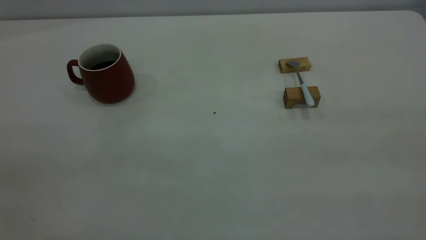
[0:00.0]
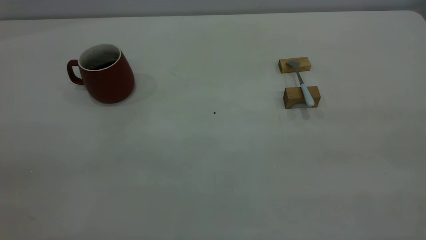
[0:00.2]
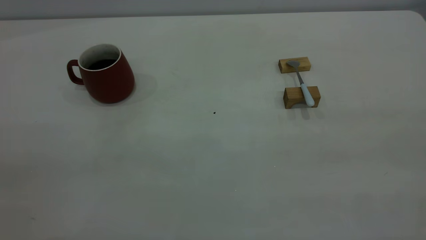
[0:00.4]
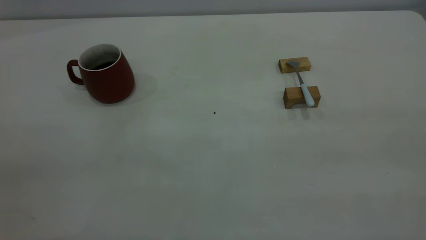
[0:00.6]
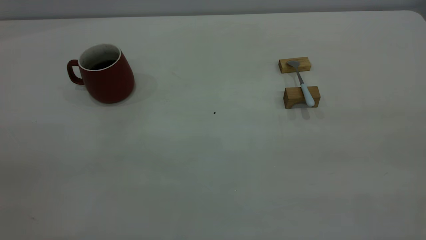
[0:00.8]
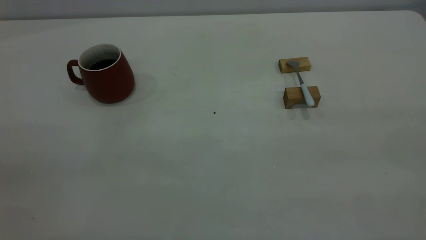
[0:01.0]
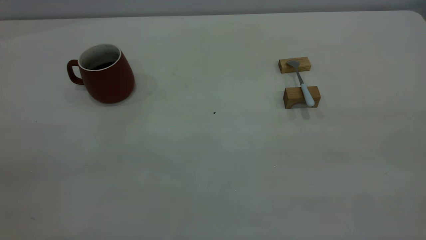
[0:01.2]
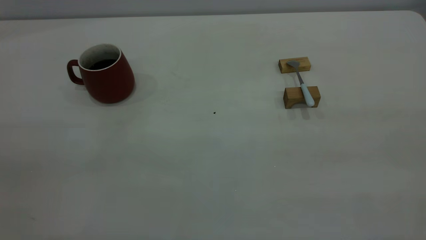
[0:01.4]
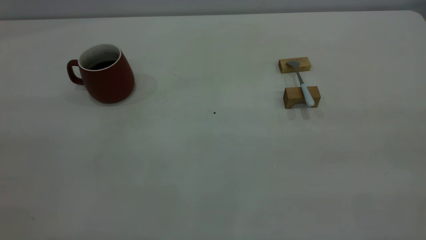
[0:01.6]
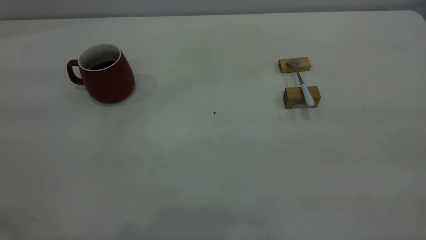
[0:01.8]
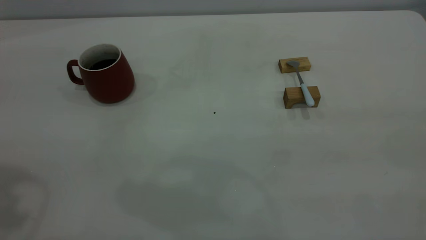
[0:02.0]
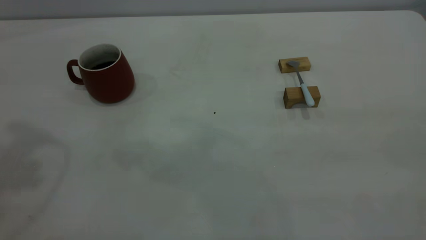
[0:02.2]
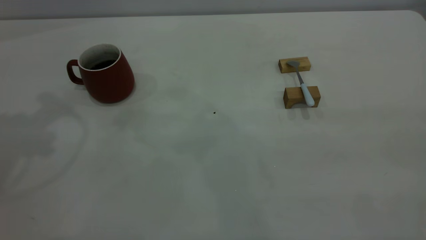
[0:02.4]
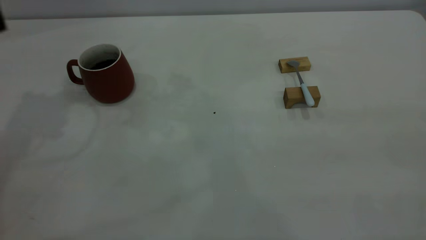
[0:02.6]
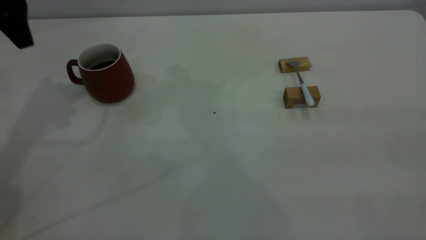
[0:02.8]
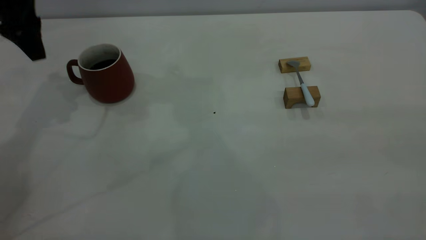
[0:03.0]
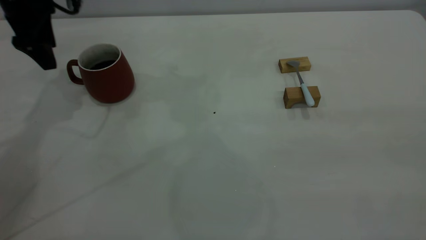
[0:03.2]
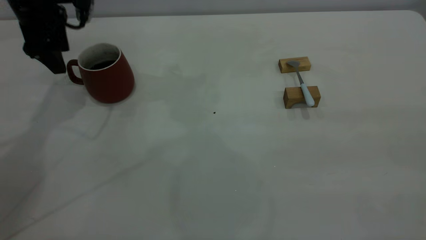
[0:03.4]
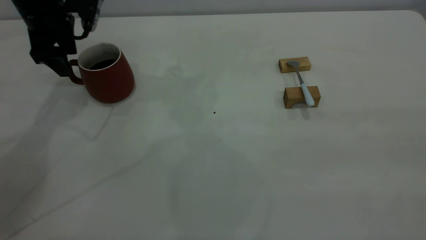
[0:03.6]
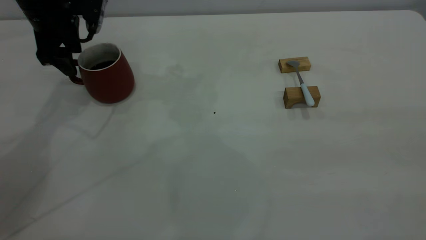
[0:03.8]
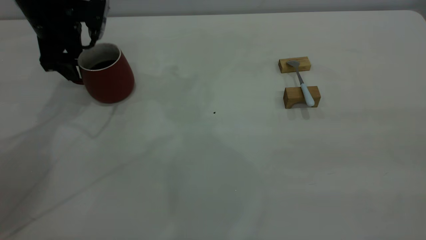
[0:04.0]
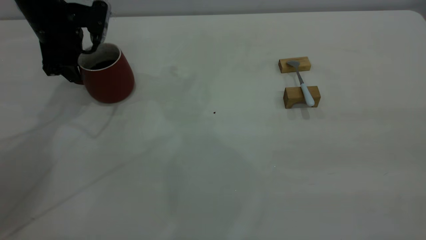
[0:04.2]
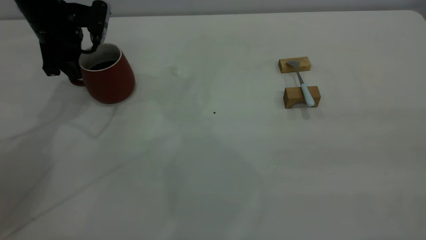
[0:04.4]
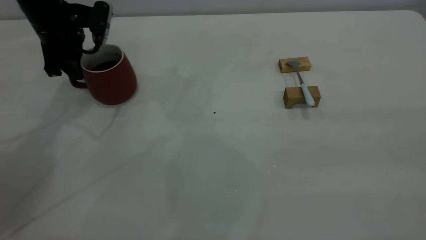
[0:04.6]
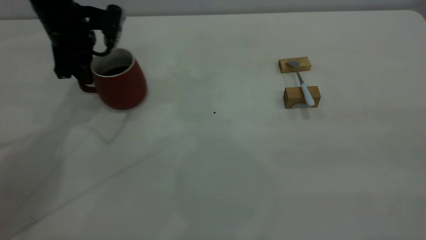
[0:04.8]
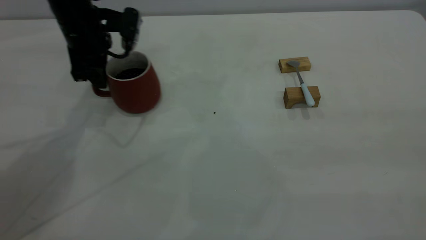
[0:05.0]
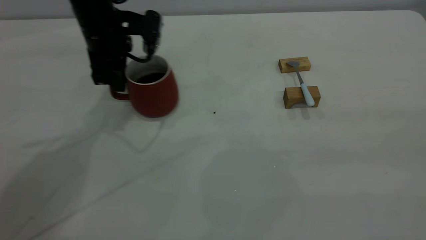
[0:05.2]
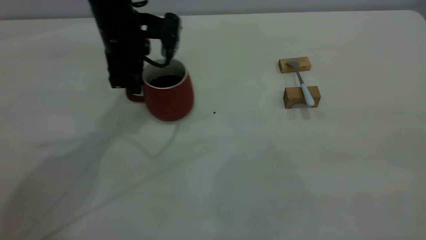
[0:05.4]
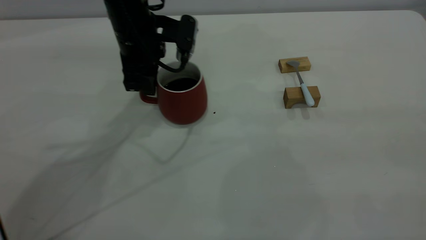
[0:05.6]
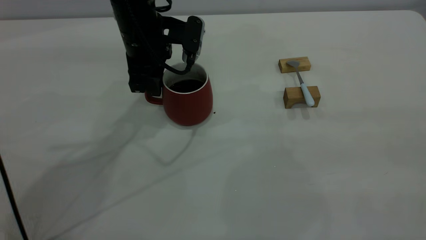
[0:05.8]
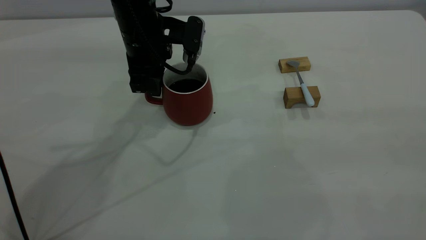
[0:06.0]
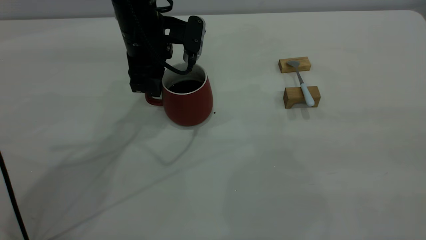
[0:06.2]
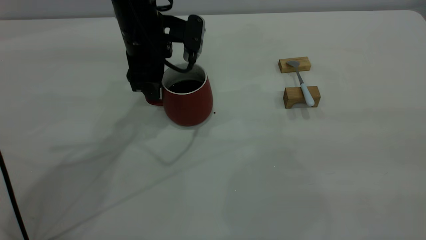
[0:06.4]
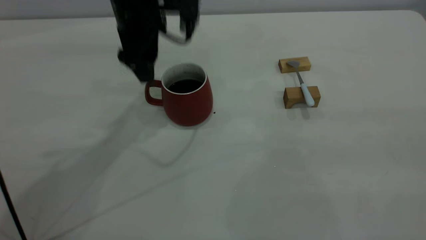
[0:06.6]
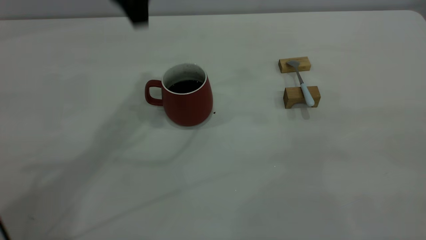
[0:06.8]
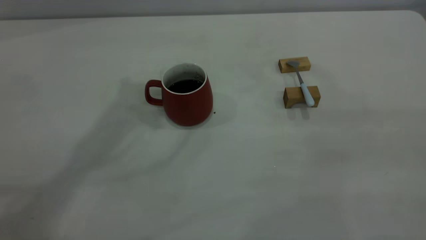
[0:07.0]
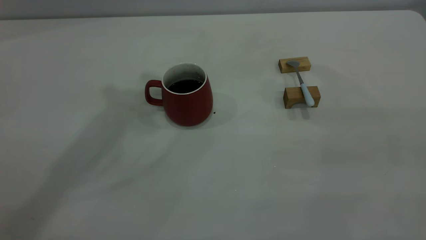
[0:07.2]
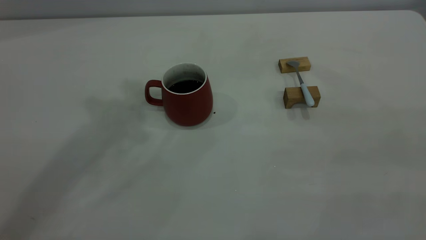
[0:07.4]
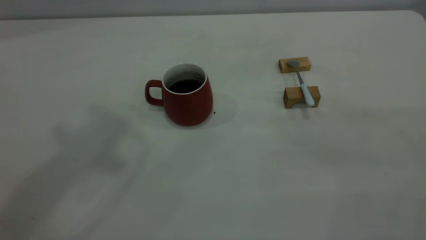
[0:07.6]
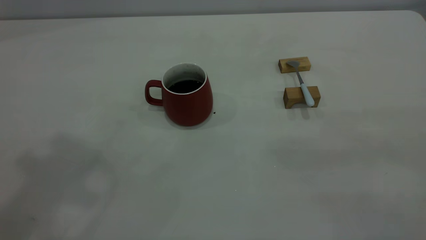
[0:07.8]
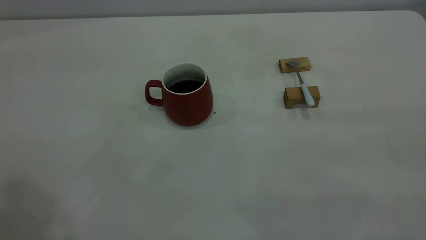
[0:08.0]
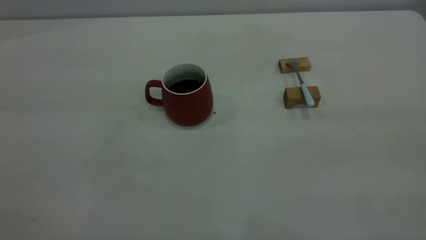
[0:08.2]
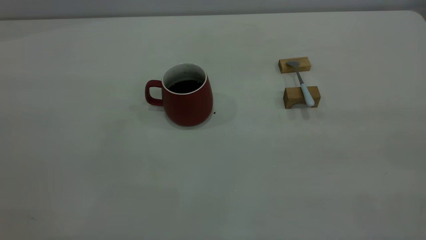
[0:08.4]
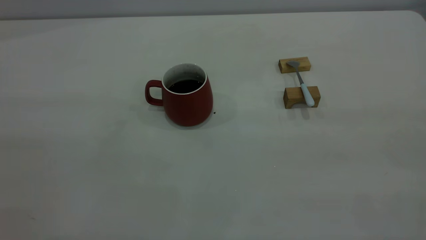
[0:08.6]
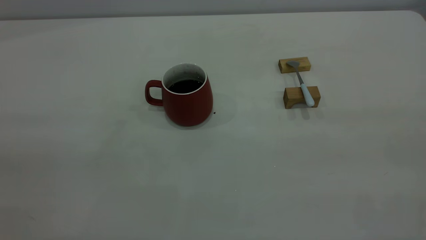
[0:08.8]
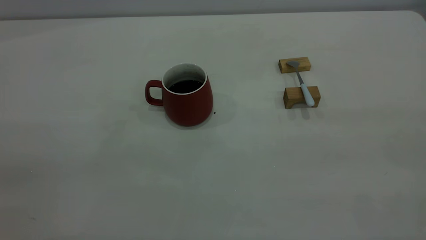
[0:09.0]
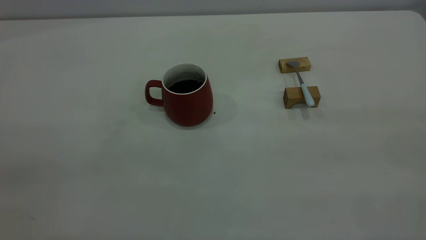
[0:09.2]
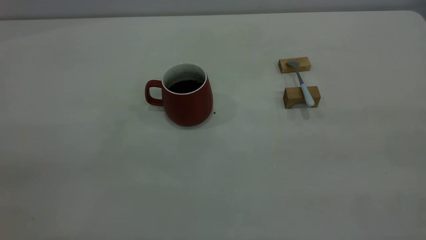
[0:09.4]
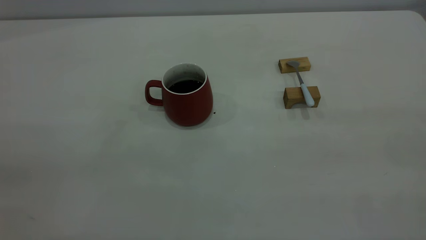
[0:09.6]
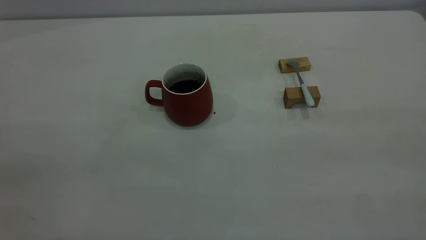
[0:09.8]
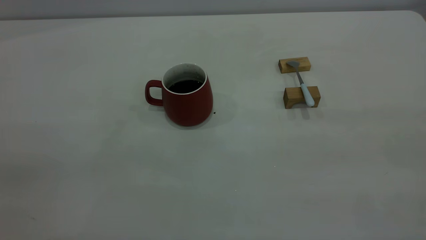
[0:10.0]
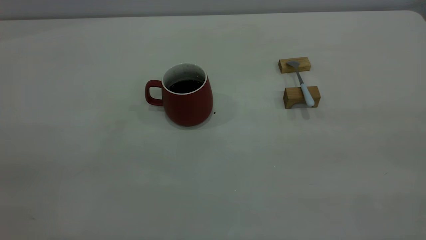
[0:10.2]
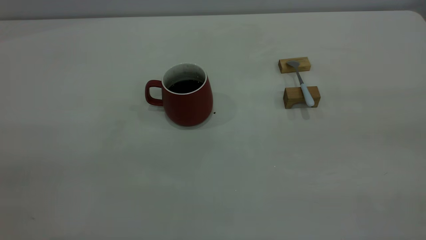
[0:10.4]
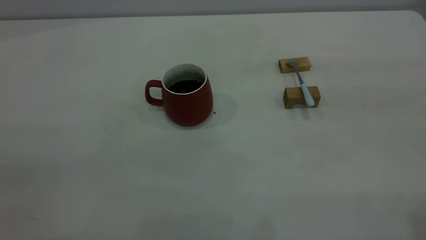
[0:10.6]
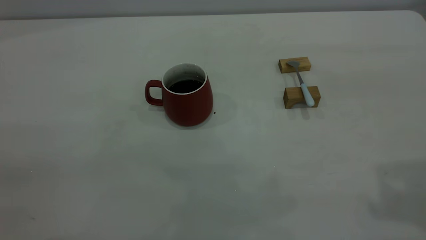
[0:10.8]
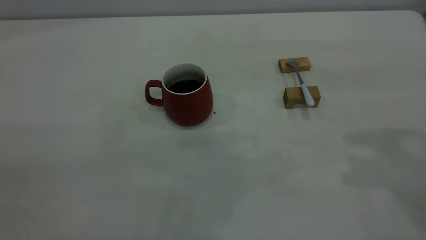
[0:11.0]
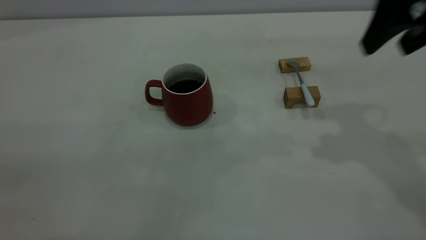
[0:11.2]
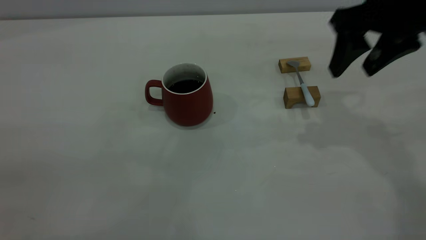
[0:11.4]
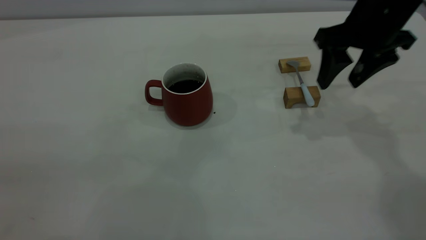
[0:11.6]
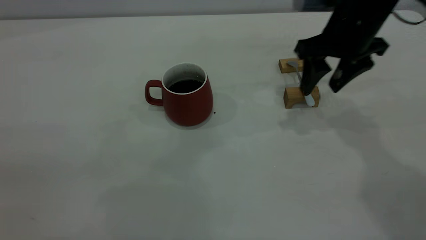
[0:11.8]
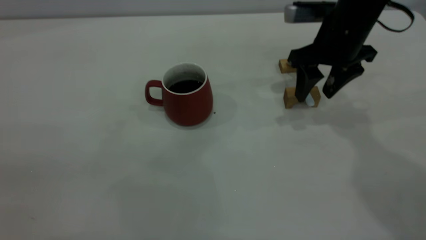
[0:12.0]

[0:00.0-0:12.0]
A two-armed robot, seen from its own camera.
Step, 0:00.0 to 0:06.6: Move the cup with coffee to the center of view.
0:01.6 to 0:03.0: The left gripper moves forward and downward, approximately 40 cm, and opens.
0:03.0 to 0:04.4: The left gripper is displaced downward by some 10 cm, and closes its fingers.
0:04.4 to 0:06.0: The left gripper is displaced to the right by approximately 15 cm.
0:06.0 to 0:07.6: The left gripper goes roughly 40 cm upward, and opens, then closes once more.
0:10.4 to 0:12.0: The right gripper shifts roughly 50 cm forward and downward.

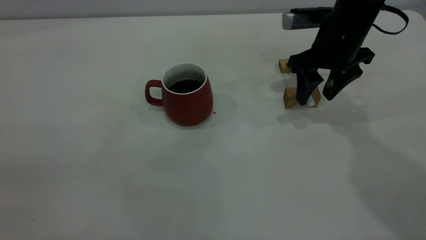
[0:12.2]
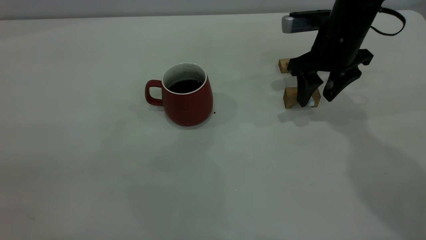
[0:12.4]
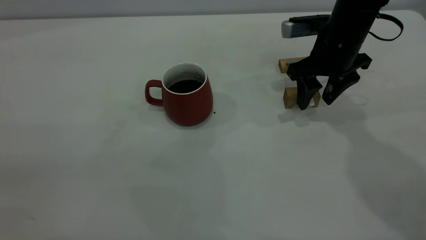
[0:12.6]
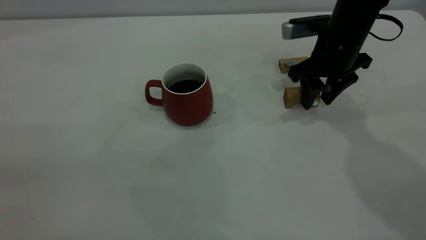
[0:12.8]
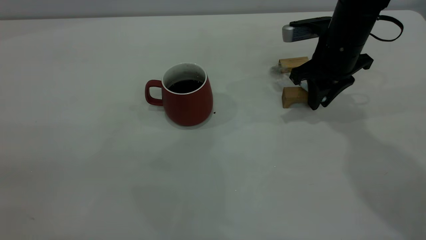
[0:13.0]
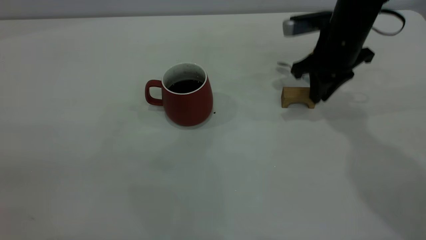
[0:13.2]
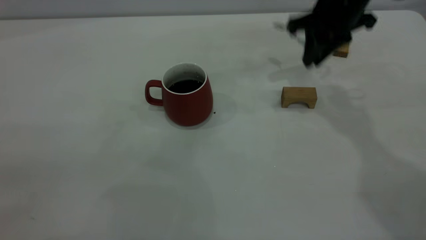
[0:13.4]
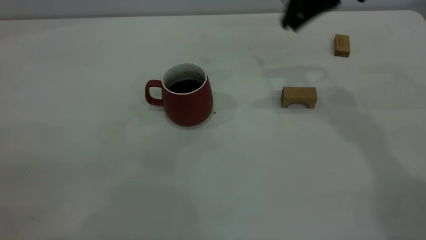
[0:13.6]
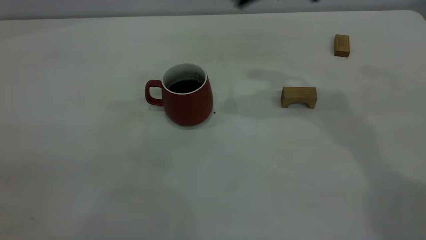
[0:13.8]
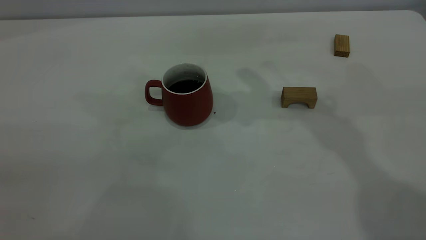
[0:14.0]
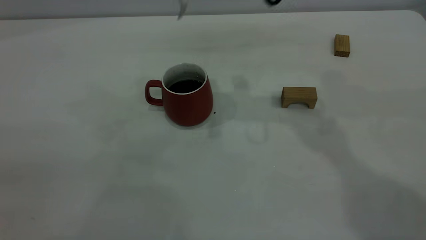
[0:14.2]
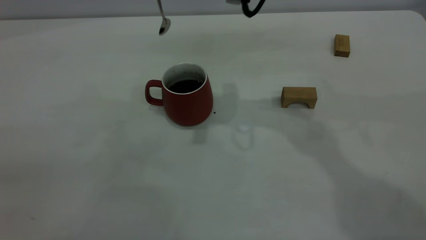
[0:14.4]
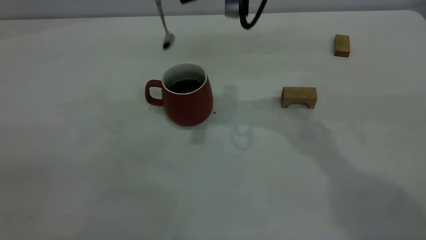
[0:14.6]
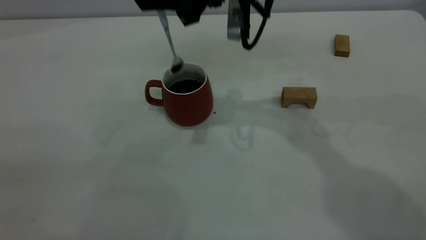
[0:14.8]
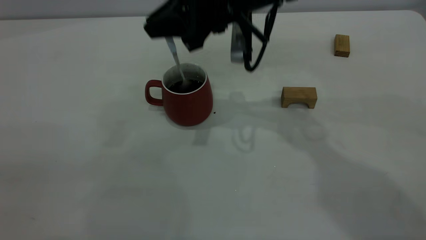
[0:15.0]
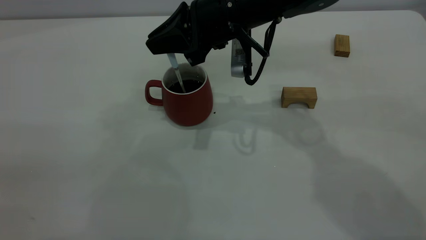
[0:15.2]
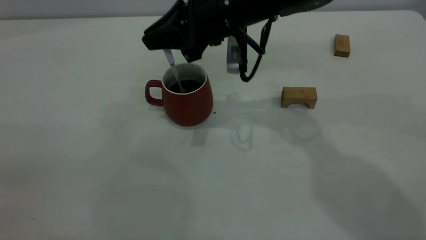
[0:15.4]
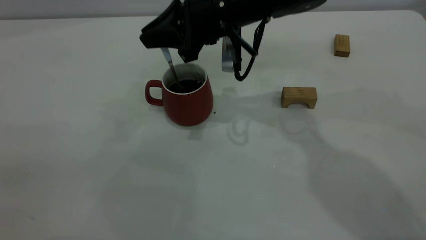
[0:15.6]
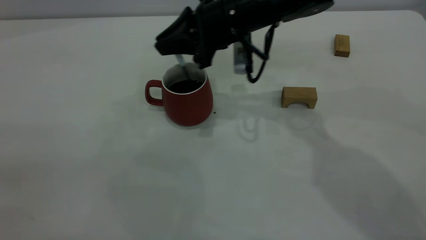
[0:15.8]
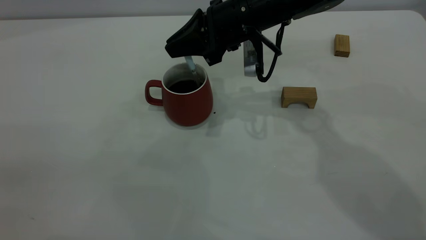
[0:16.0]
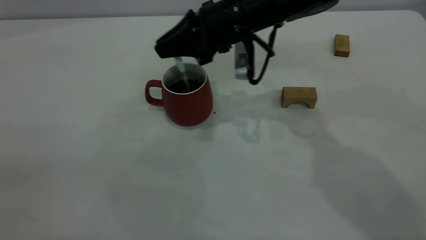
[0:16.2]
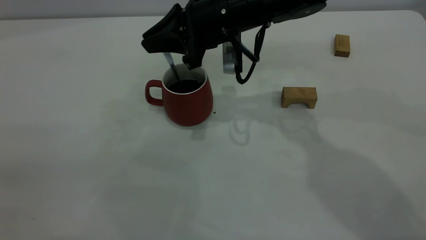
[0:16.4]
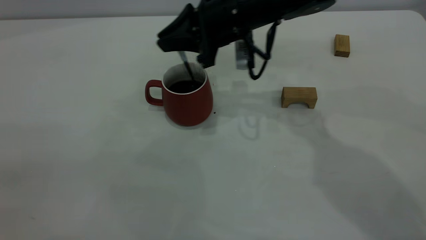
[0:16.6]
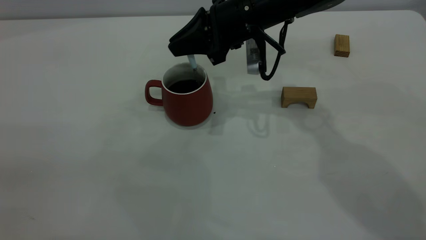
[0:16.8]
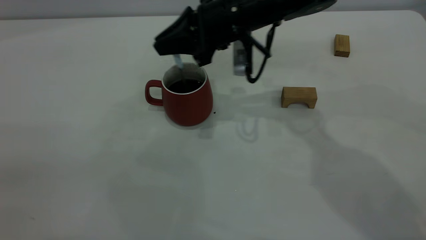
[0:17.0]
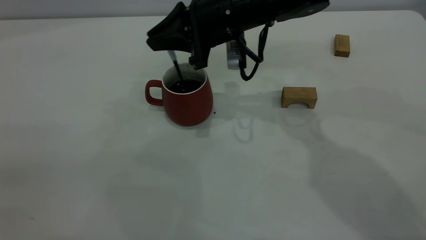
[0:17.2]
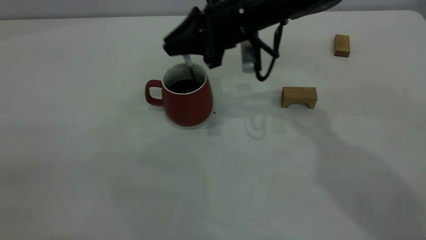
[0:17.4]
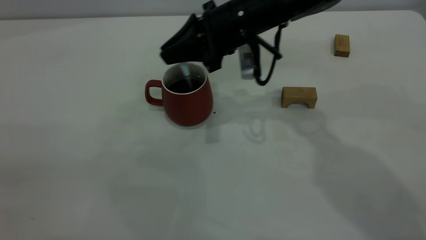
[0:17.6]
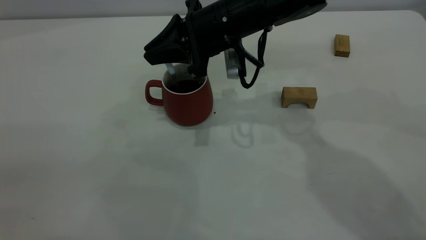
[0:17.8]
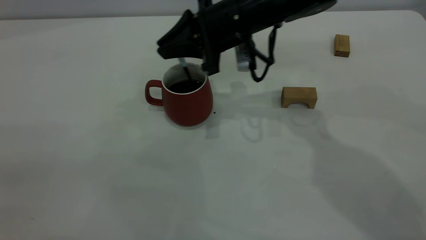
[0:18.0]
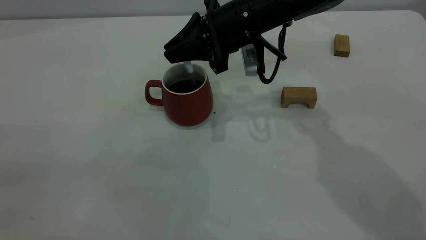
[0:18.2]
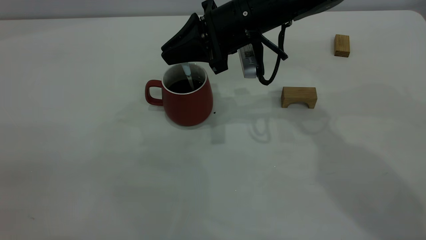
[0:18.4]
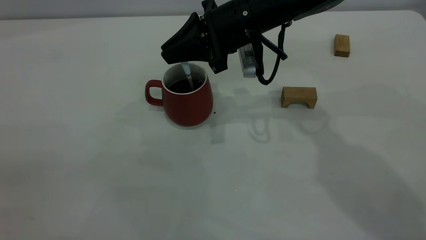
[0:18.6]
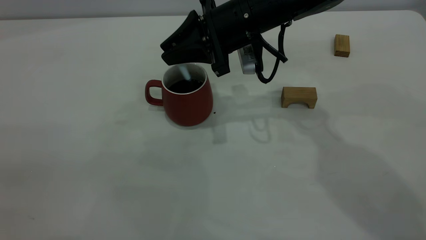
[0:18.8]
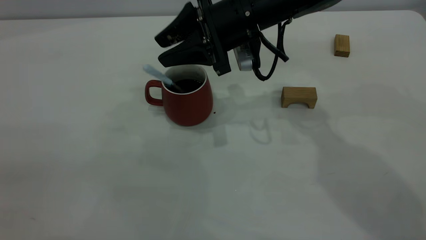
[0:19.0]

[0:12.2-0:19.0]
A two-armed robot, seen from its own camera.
Step, 0:13.4 to 0:18.8: Stir the coffee in the cup.
0:12.2 to 0:13.6: The right gripper goes some 15 cm upward, and closes up.
0:13.6 to 0:15.0: The right gripper heads to the left and downward, covering about 15 cm.
0:15.0 to 0:17.6: The grippers make only small movements.
0:17.6 to 0:19.0: The right gripper opens.
